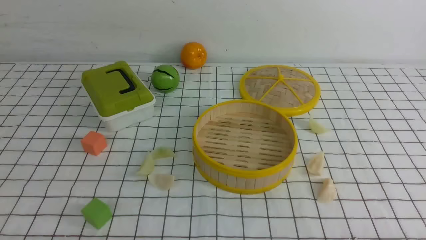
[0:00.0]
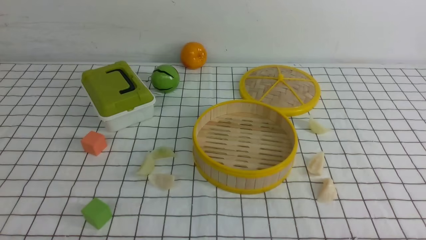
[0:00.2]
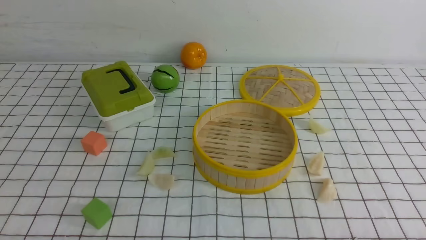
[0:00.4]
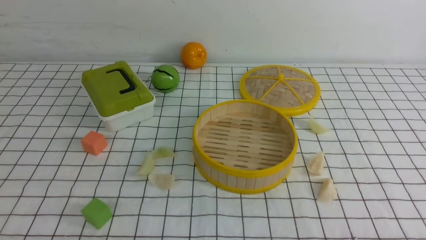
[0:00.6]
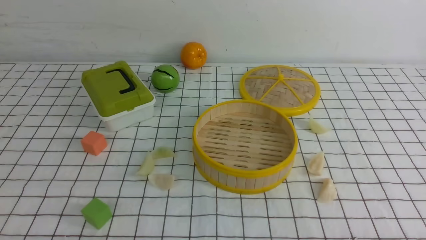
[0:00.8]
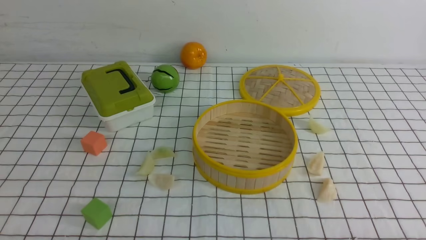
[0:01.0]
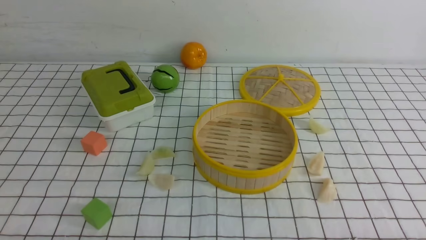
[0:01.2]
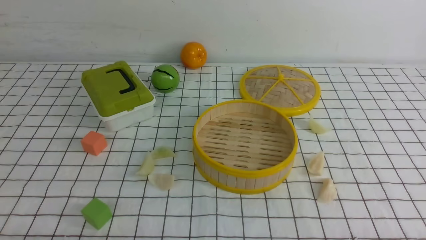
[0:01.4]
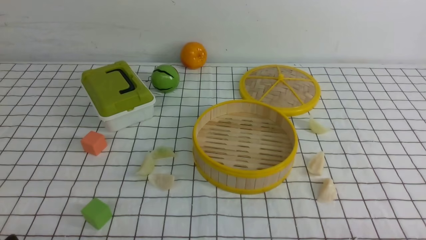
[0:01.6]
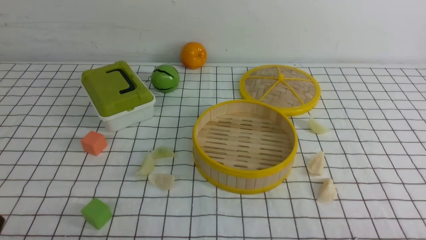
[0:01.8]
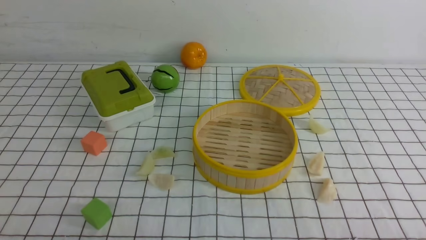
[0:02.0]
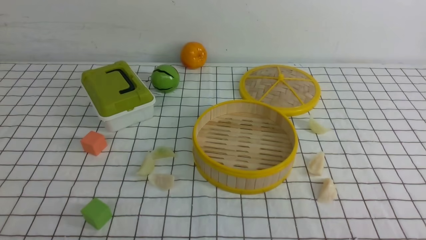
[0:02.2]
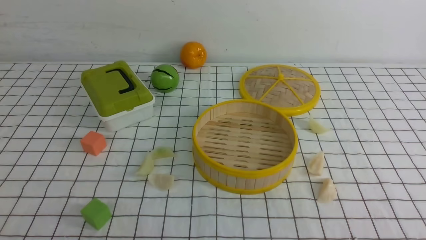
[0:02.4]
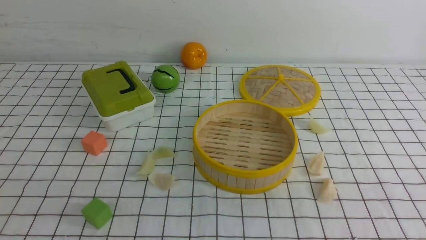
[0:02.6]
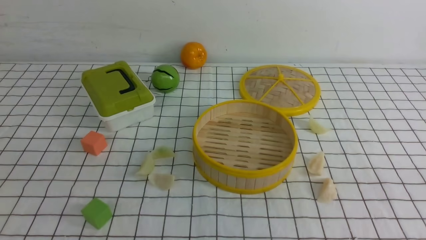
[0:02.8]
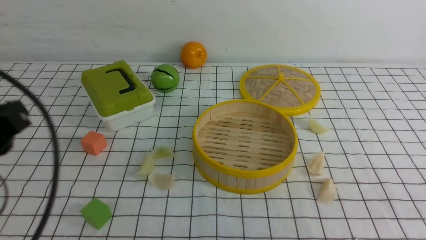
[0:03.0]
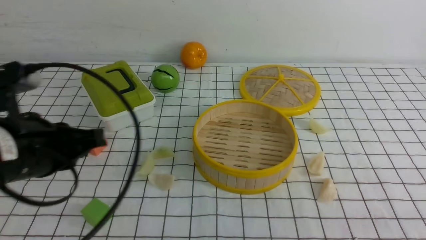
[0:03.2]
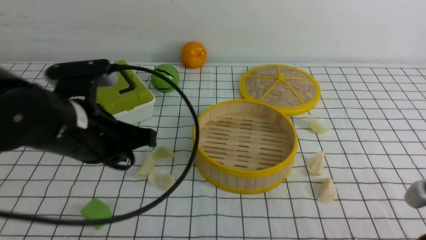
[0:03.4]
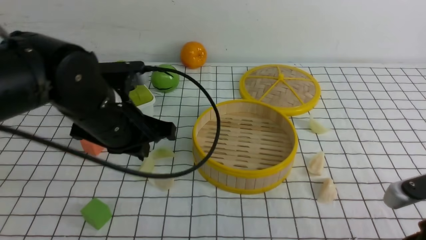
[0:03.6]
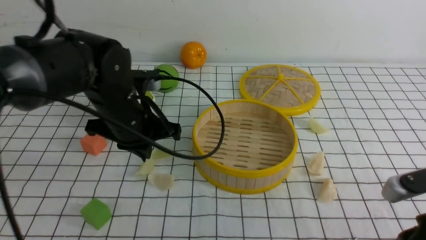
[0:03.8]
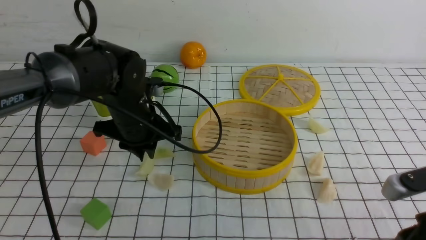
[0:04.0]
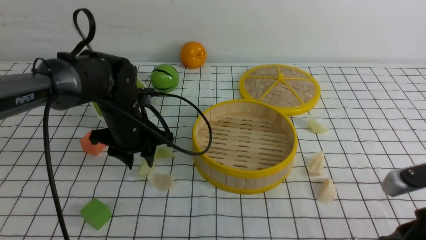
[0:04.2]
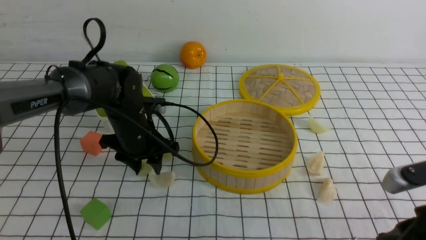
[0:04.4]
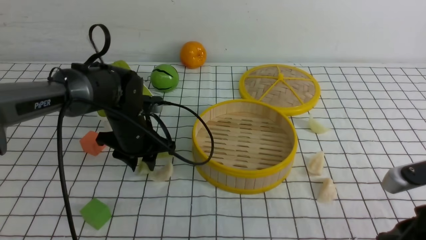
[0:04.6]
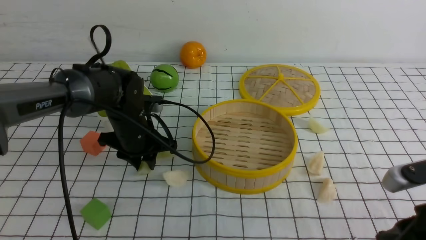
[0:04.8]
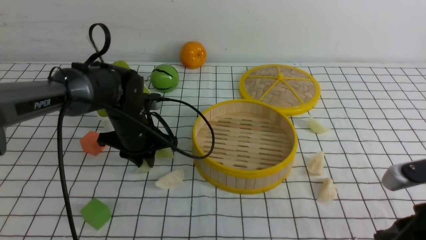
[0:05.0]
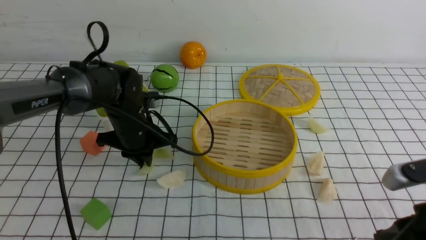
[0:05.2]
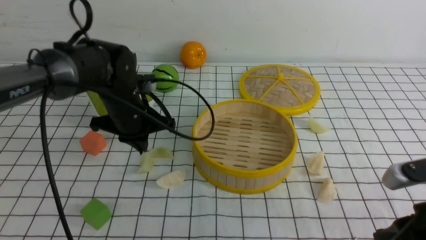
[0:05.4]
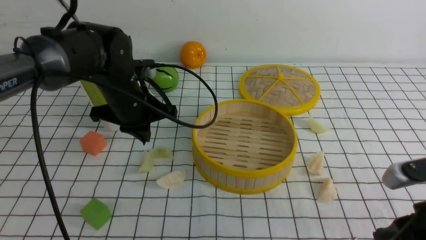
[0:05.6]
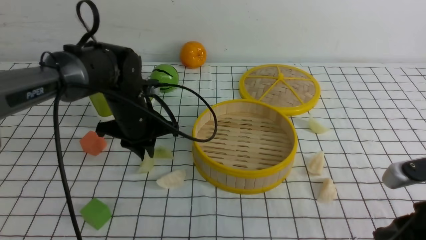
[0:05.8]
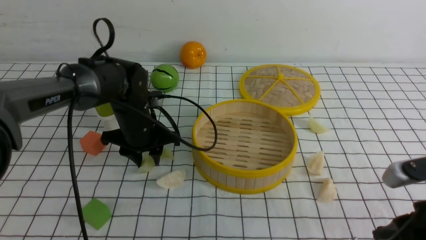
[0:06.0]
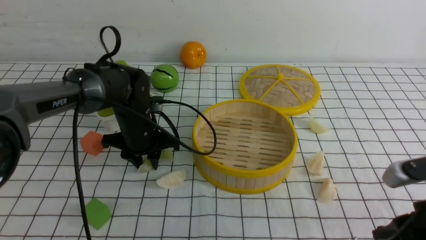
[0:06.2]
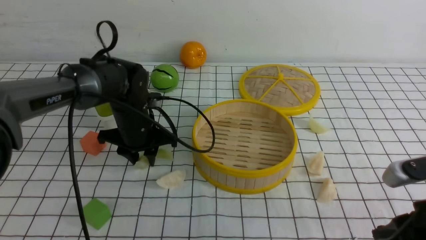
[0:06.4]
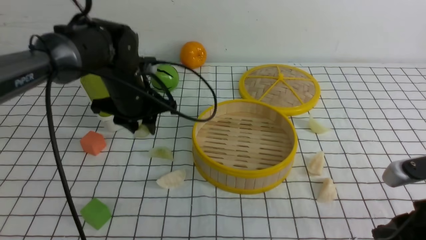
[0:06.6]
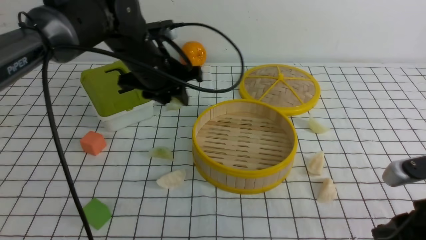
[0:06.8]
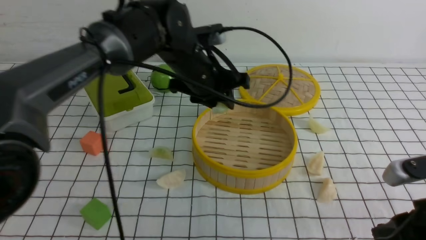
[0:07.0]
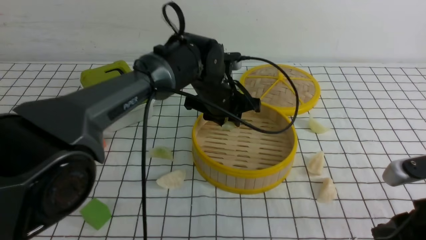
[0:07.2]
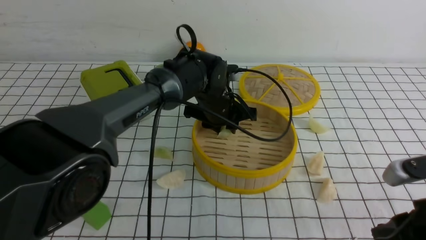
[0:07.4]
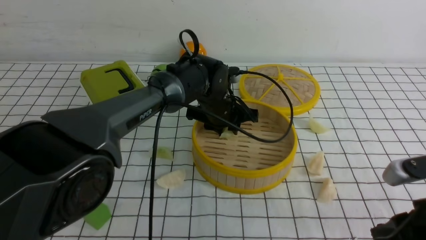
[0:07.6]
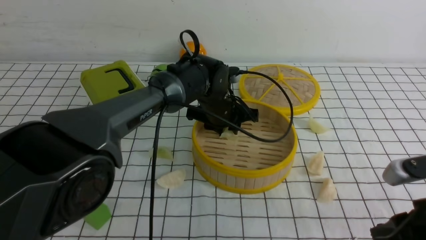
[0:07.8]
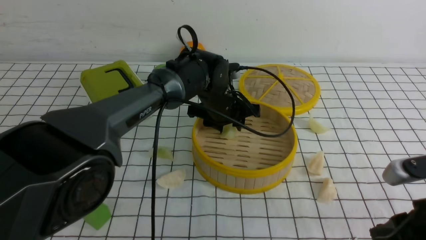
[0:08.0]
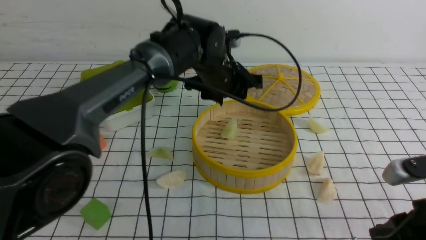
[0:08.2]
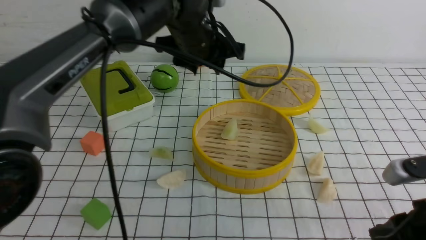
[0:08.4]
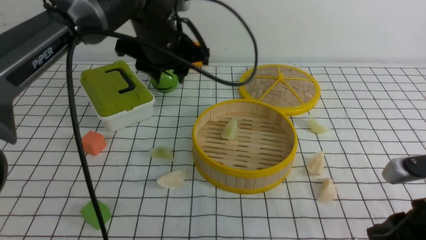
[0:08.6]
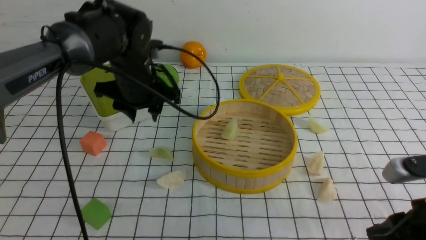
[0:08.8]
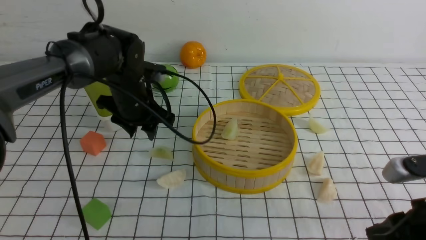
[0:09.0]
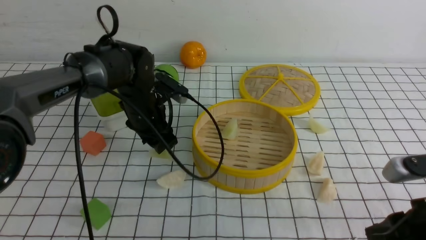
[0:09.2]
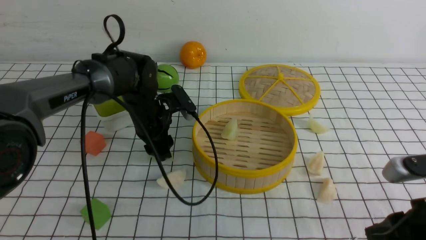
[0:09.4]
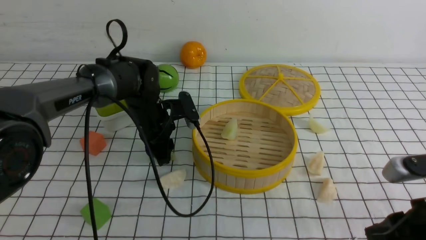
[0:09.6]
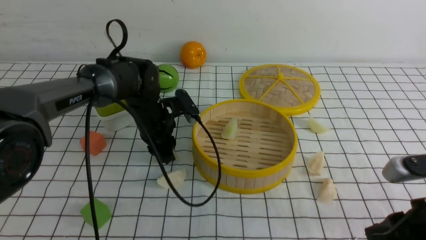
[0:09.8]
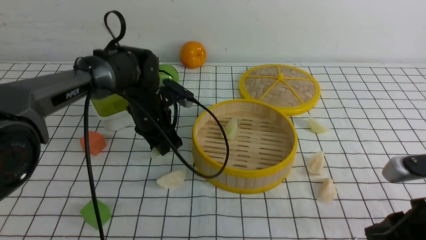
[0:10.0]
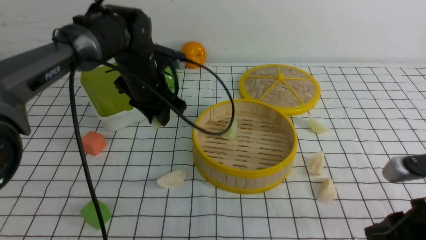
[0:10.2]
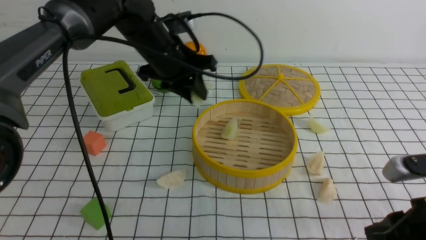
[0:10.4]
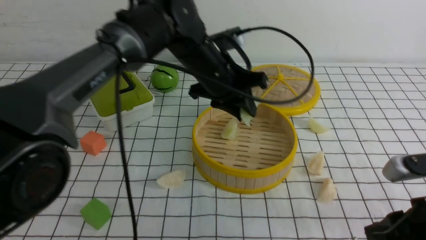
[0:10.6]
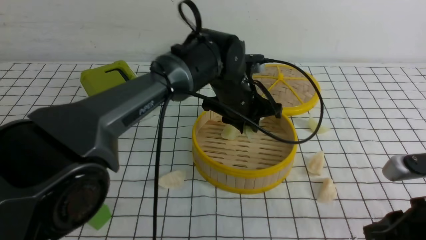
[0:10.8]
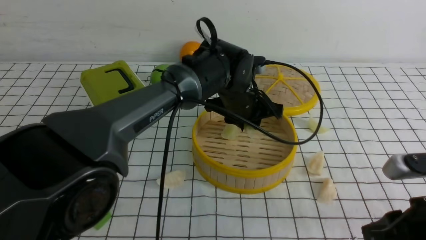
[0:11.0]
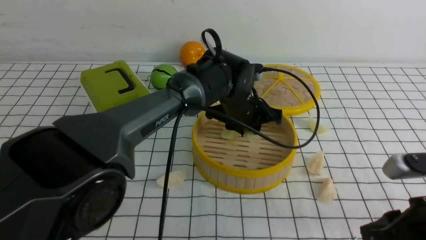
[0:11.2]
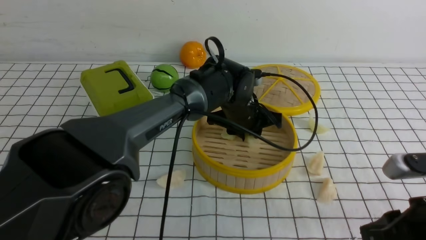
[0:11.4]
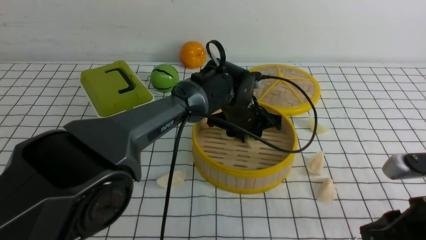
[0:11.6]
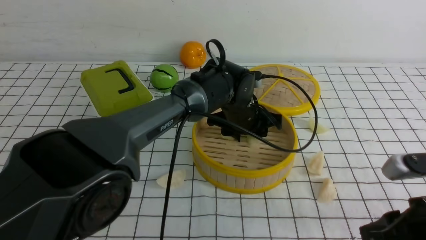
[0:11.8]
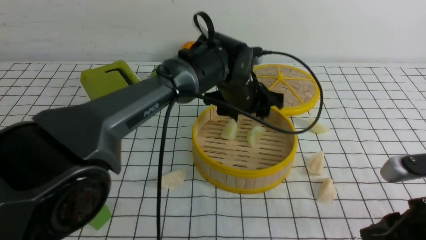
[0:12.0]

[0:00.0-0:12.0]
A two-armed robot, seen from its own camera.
Task of the whole recording: put the dumplings into the steamer on the table with the white tablecloth.
Step, 0:00.0 to 0:06.2: use the left arm to grab a dumpling.
Step, 0:06.4 to 0:08.2: use the left arm to put the dumpling into the steamer.
Step, 0:08.4 to 0:09.6: use the left arm to grab a dumpling.
Step, 0:09.8 to 0:12.0: use the left arm to put the dumpling into the steamer.
0:01.6 to 0:03.0: The left gripper is displaced upward and forward by approximately 20 cm, and closes up.
0:03.0 to 0:04.4: The right gripper is displaced to the left by some 5 cm, while the left gripper is displaced forward, downward and to the right by roughly 30 cm, and opens.
0:04.4 to 0:06.0: The left gripper closes, then opens again.
0:06.0 to 0:07.6: The left gripper moves to the right, approximately 15 cm.
0:07.6 to 0:09.0: The left gripper travels to the left by some 15 cm.
0:09.0 to 0:10.4: The left gripper goes about 10 cm to the right and upward, and closes its fingers.
0:10.4 to 0:12.0: The left gripper heads to the right, covering about 10 cm, and opens its fingers.

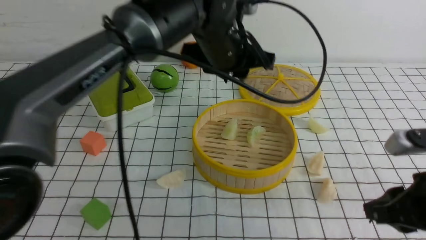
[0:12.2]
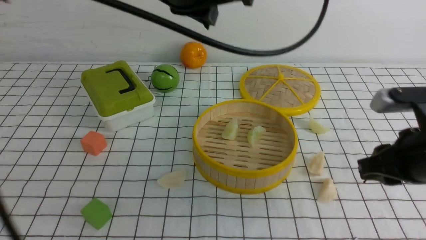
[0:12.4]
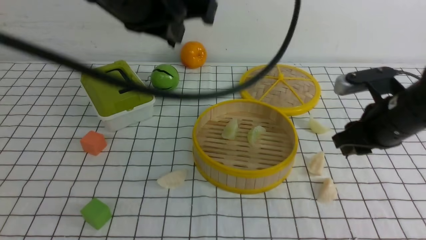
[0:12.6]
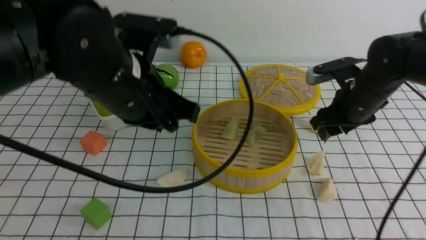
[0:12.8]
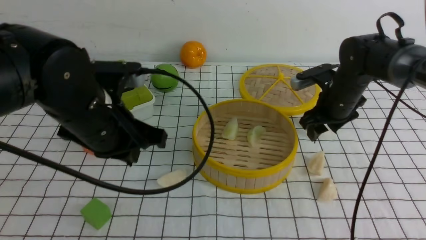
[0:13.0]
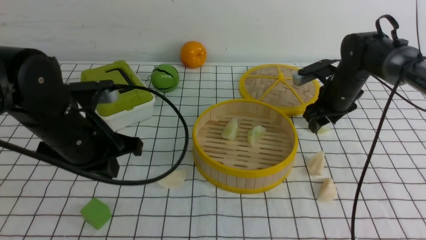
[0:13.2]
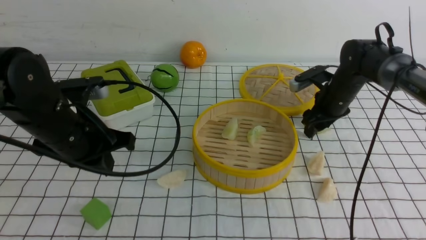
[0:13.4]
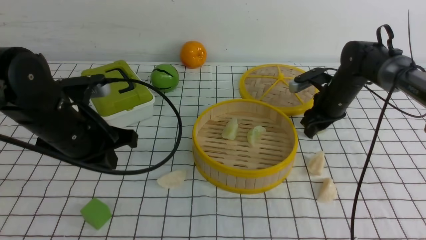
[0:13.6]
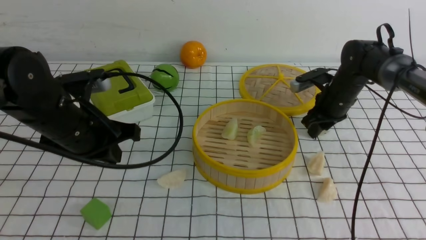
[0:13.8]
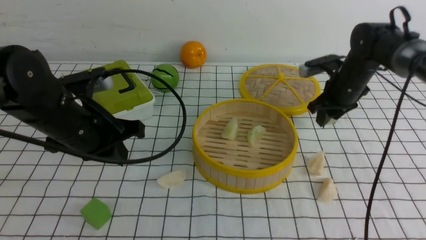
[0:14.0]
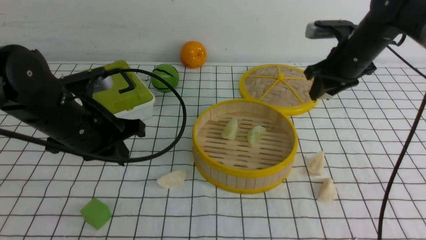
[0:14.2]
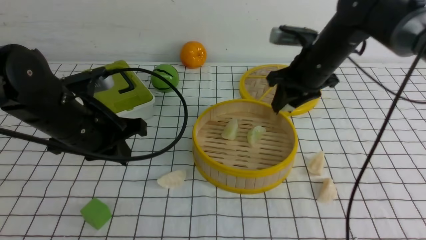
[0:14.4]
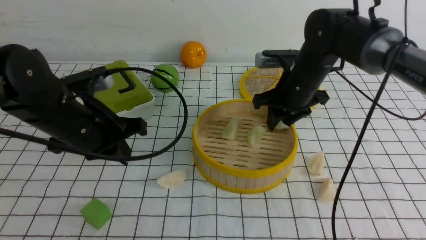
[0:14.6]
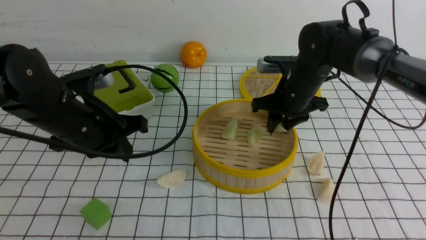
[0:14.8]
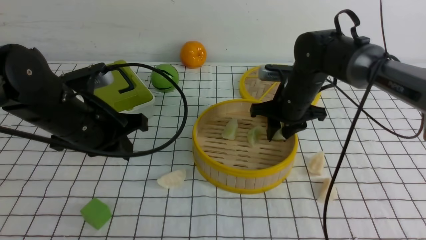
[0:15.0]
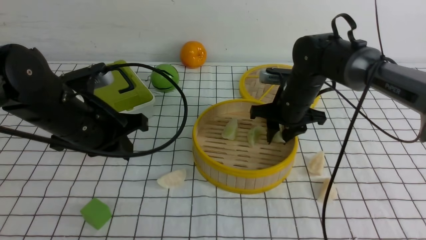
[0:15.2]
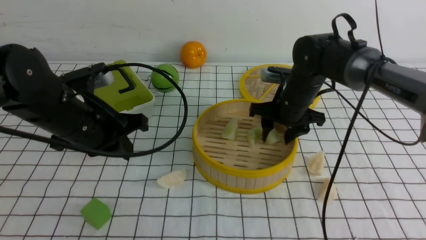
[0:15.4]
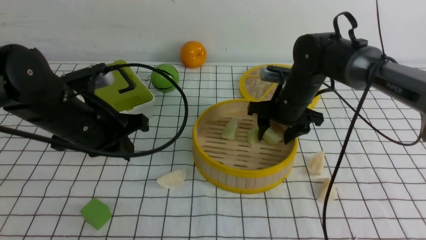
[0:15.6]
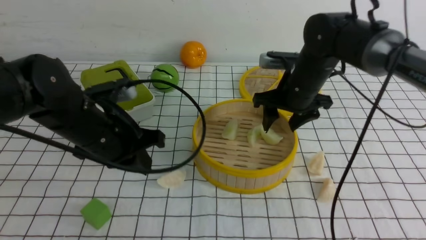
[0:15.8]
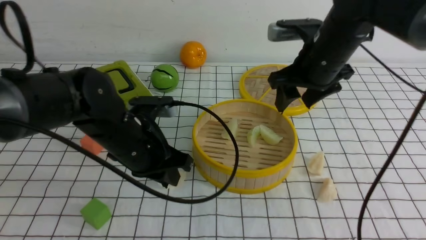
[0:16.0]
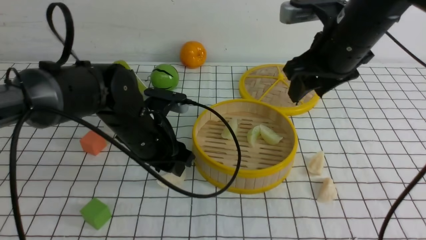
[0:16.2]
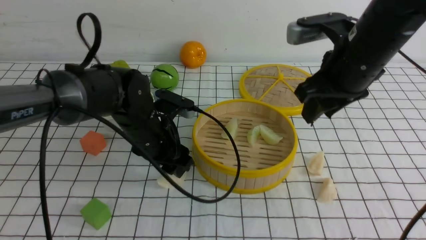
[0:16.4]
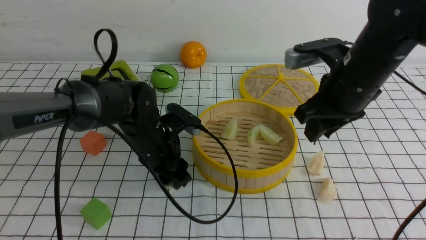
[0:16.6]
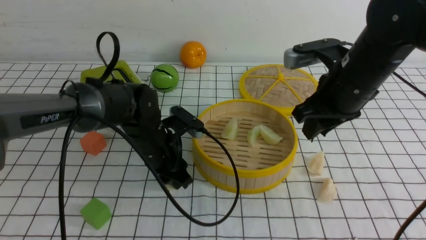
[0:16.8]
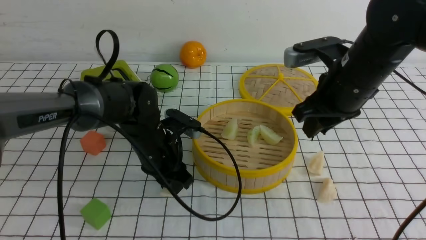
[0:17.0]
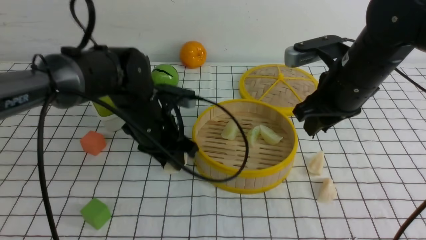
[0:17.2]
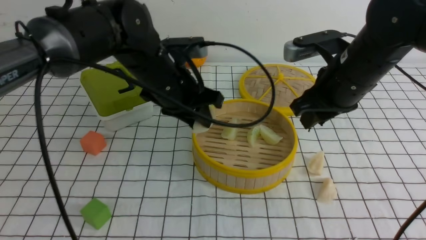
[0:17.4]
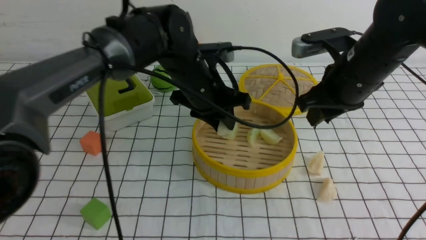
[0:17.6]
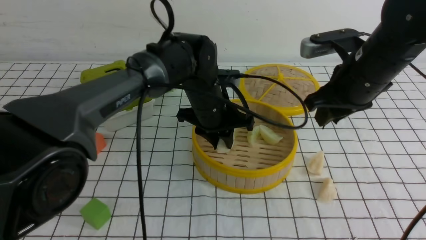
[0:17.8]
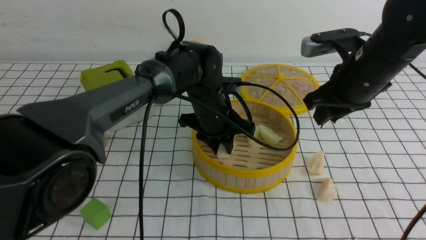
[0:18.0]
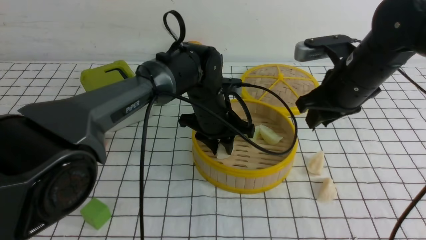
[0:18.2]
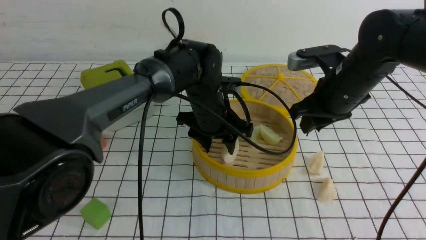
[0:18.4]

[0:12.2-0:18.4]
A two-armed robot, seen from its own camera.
Task of the whole recording: put the dumplings into the steamer on the table with the white tablecloth.
Step, 0:12.2 to 0:13.8: use the right arm to grab a dumpling.
Step, 0:14.0 to 0:15.8: use the right arm to put the dumpling into the steamer.
Step, 0:16.0 to 0:16.8: use the left arm to grab a dumpling.
0:12.2 to 0:13.8: The left gripper shifts about 20 cm to the left, downward and backward, and closes its fingers. The right gripper travels forward by about 30 cm, and opens, then closes again.
0:13.8 to 0:15.4: The right gripper heads to the left and backward, covering approximately 10 cm.
0:15.4 to 0:16.8: The right gripper moves backward and upward, roughly 15 cm. Meanwhile the left gripper moves downward, to the right and forward, some 15 cm, and opens up.
0:16.8 to 0:18.4: The right gripper moves about 5 cm. The left gripper moves to the right and upward, approximately 10 cm.
